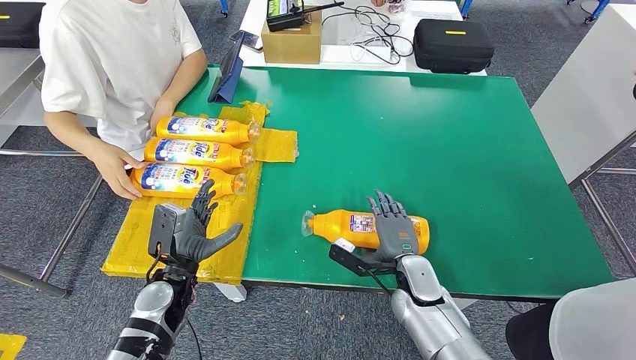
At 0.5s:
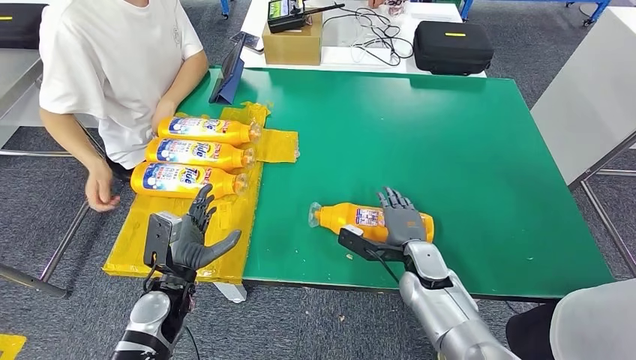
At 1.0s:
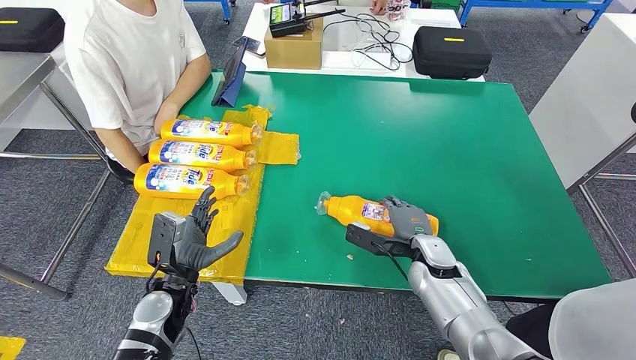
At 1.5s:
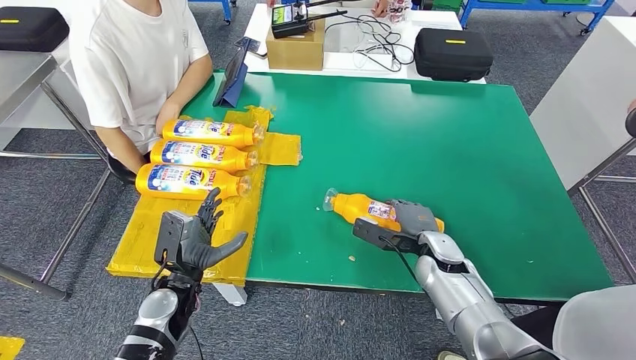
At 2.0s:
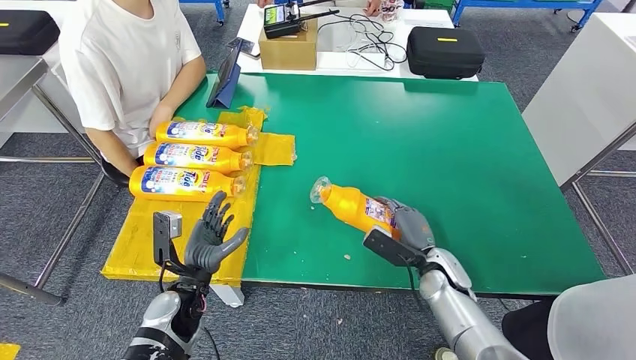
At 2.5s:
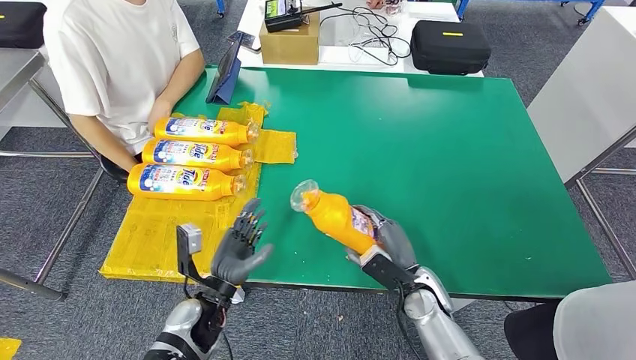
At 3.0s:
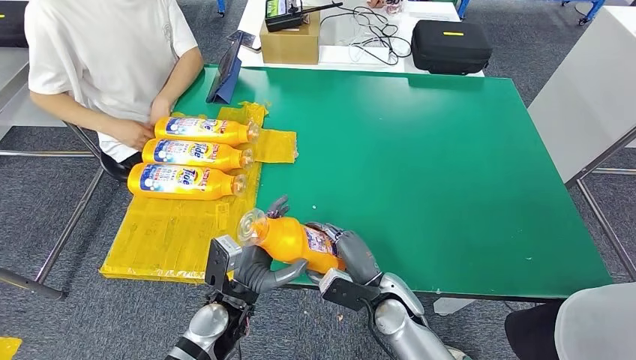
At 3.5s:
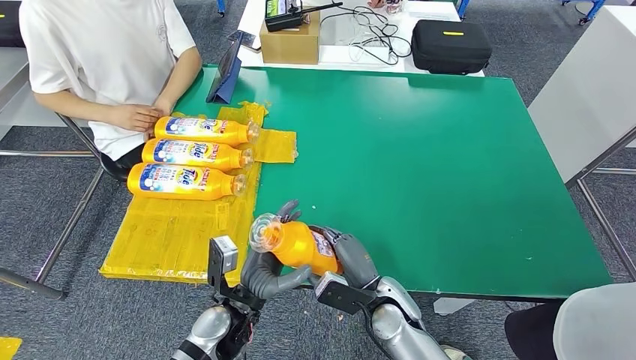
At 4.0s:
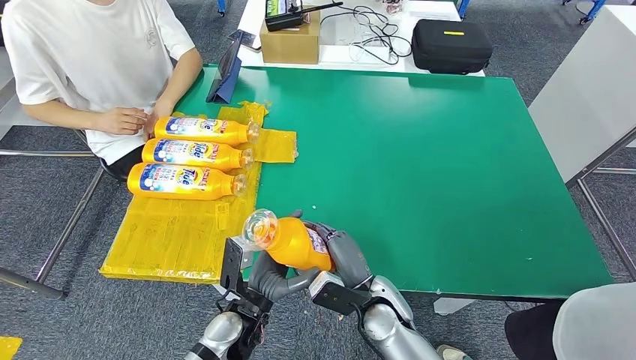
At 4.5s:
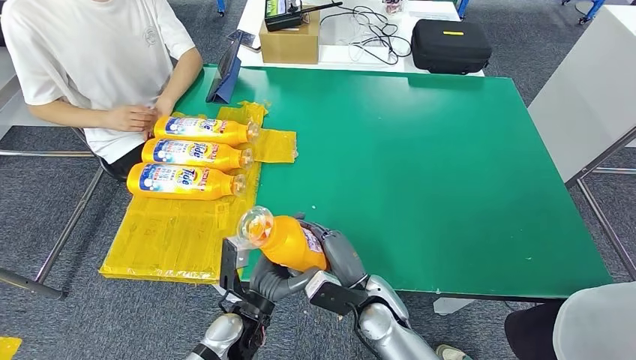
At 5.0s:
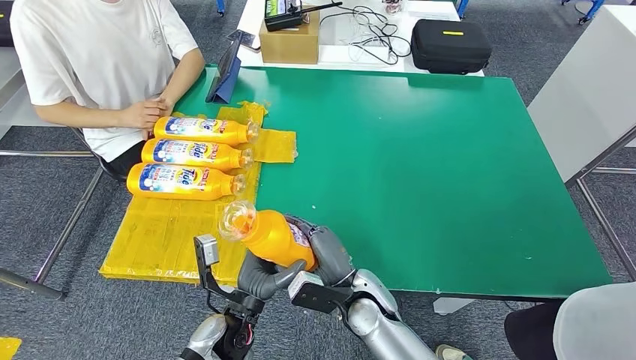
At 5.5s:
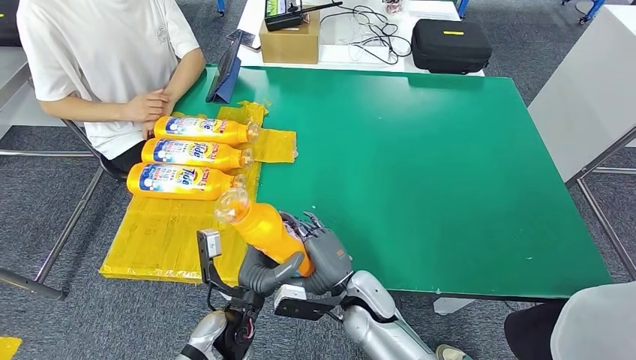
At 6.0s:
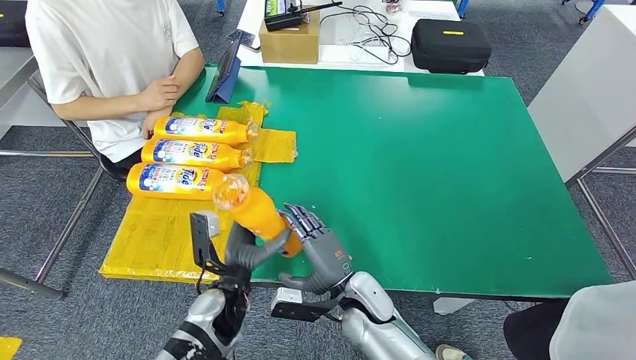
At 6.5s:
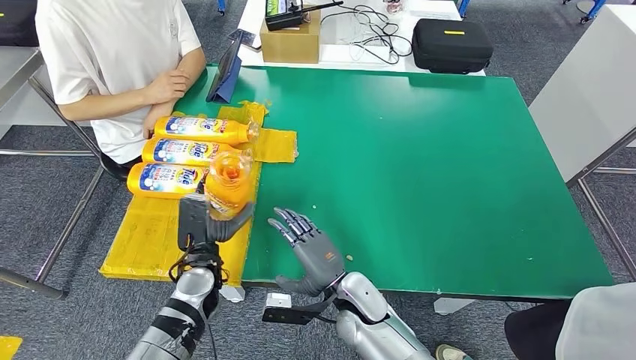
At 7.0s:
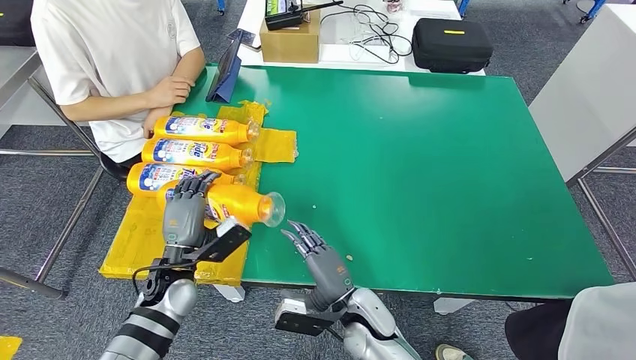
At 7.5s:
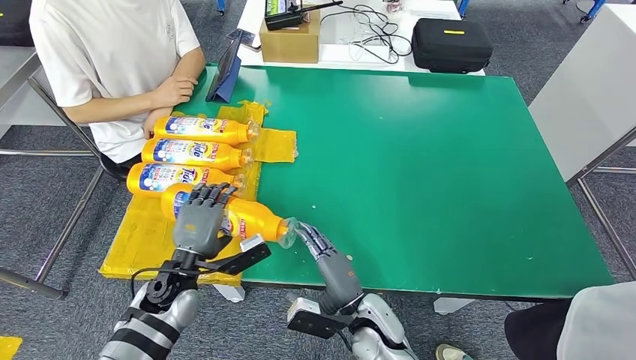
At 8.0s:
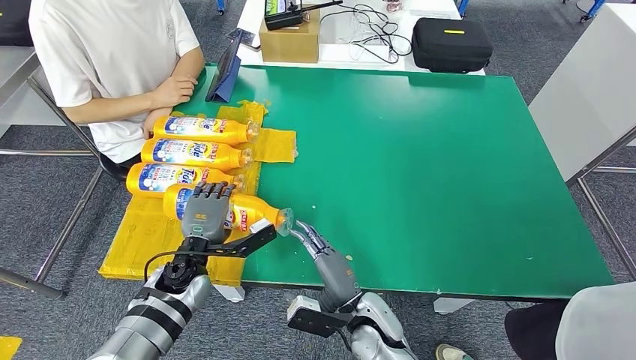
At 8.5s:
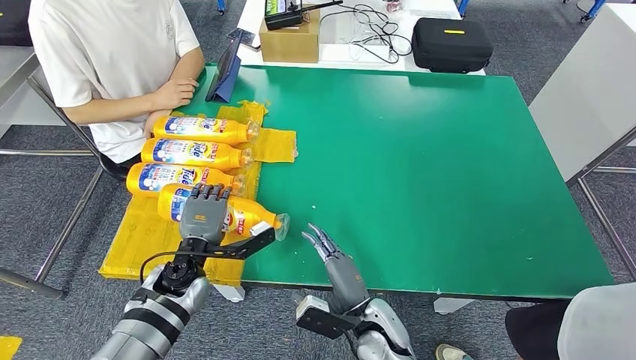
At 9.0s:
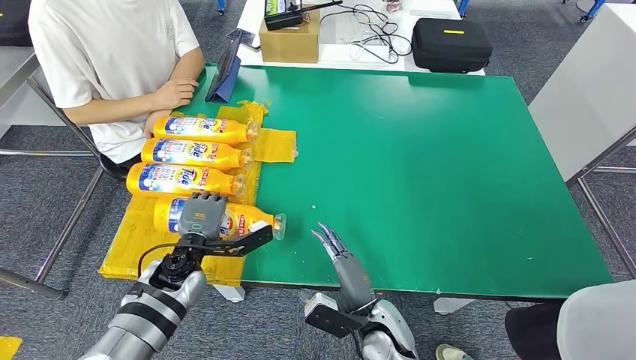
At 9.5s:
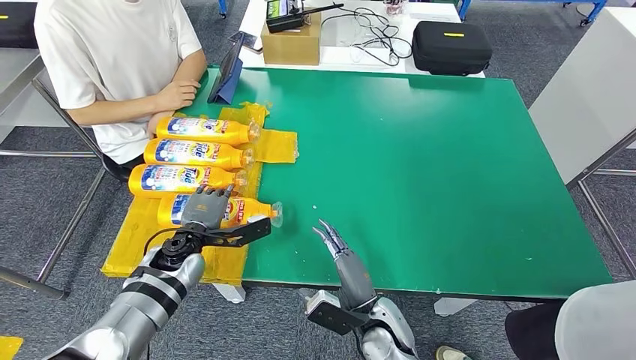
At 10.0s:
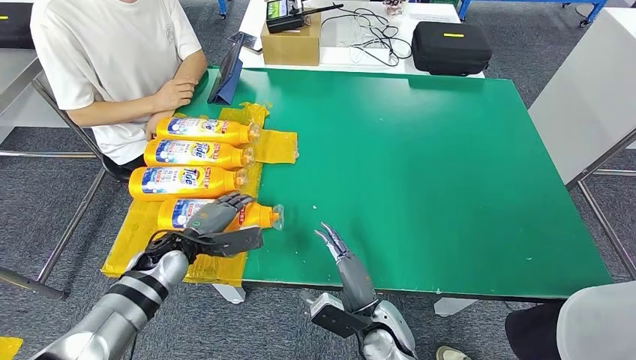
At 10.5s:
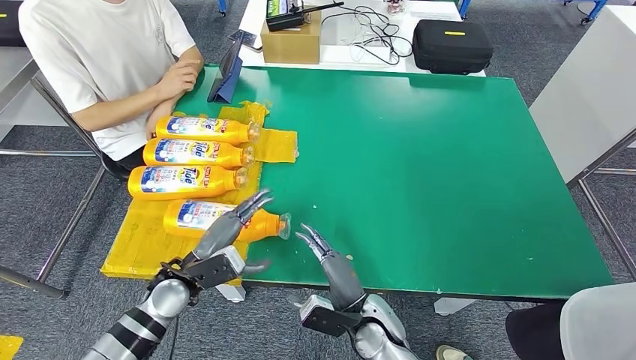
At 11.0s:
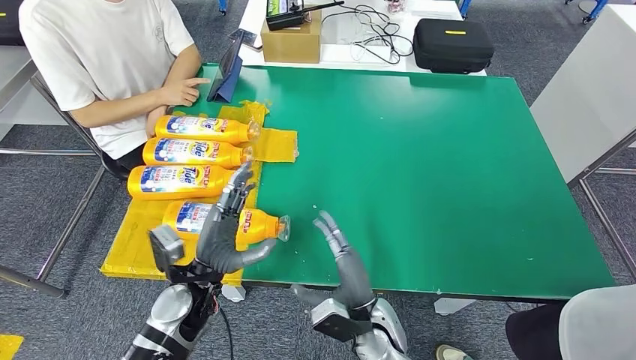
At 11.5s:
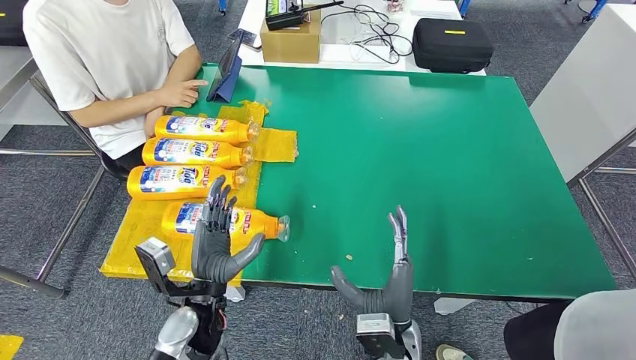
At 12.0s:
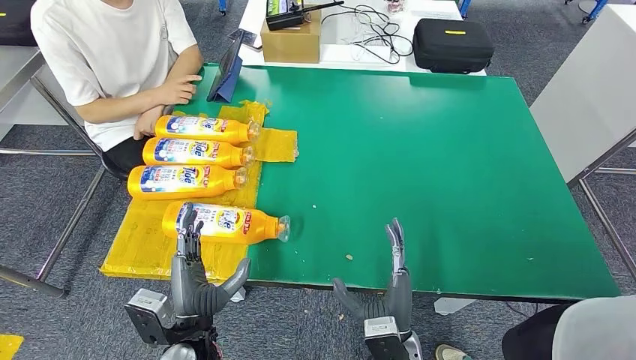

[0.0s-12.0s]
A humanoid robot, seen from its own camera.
Step, 0.0s to 2.5s: Pick up the bottle from the table.
Step, 3.0s to 12.0s: Flip the bottle to face forward.
4.0s to 6.0s: The left hand ends up some 5 cm from where it was.
6.0s to 8.0s: The left hand is displaced to the left by roughly 10 cm.
